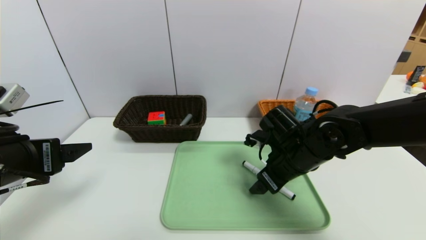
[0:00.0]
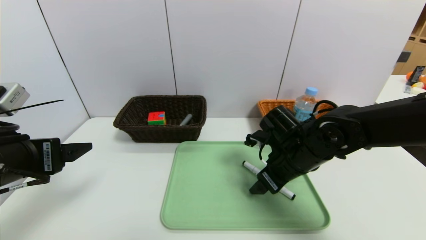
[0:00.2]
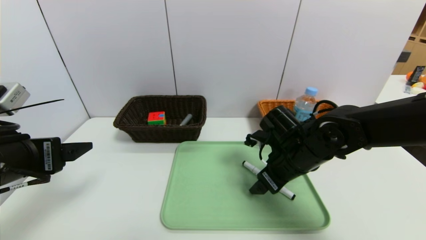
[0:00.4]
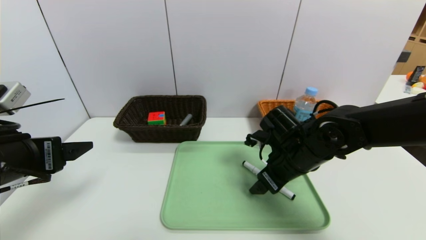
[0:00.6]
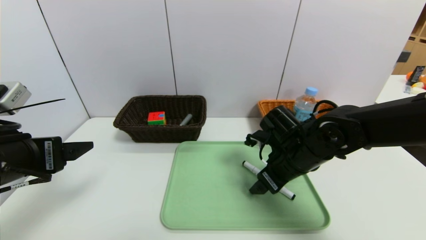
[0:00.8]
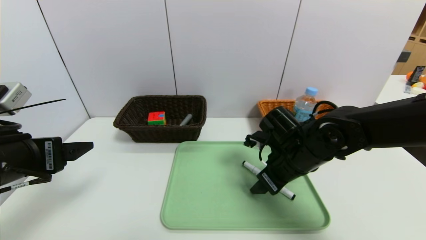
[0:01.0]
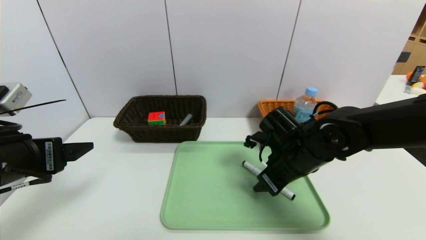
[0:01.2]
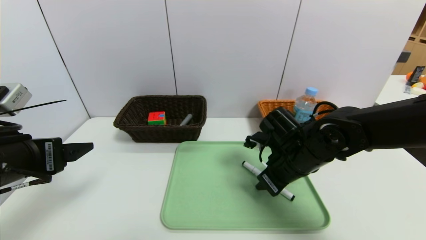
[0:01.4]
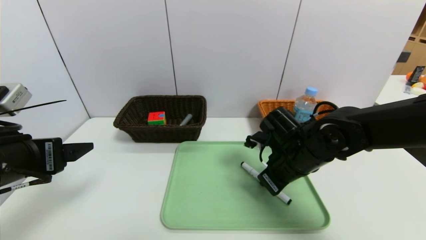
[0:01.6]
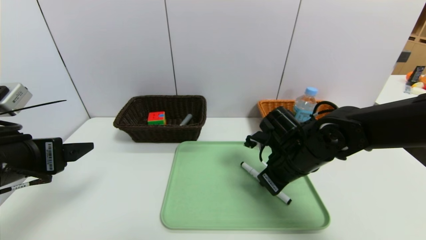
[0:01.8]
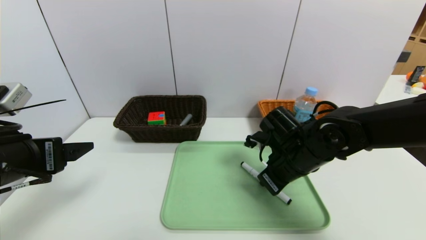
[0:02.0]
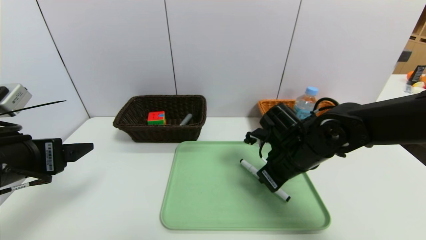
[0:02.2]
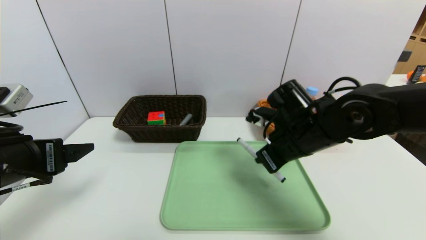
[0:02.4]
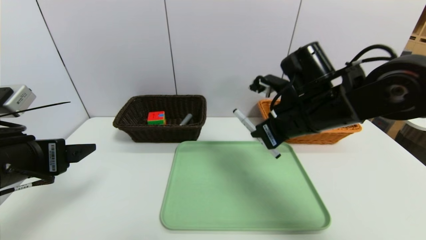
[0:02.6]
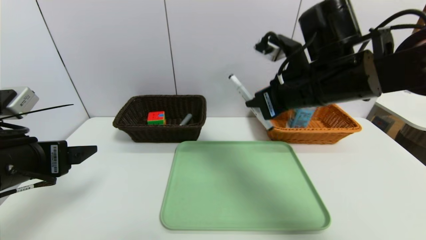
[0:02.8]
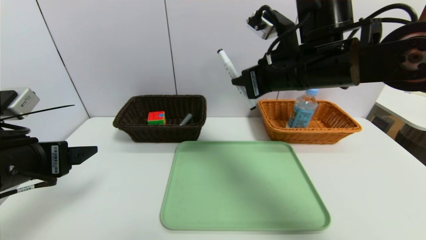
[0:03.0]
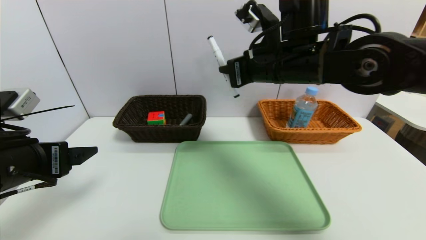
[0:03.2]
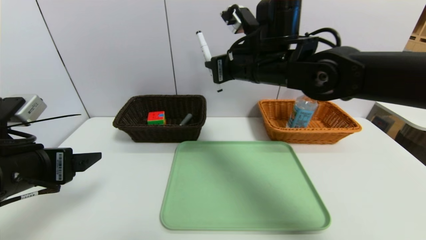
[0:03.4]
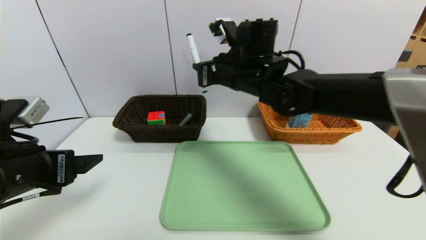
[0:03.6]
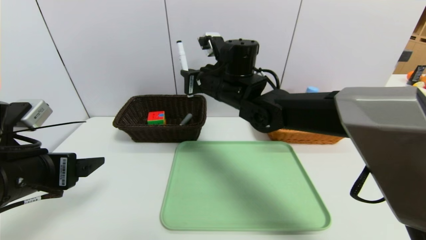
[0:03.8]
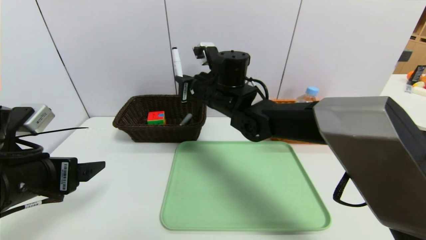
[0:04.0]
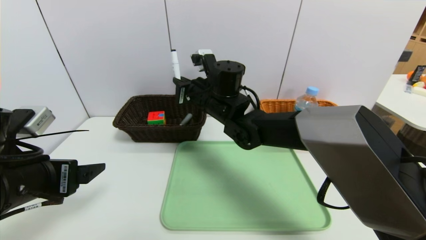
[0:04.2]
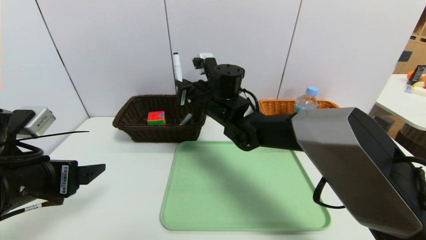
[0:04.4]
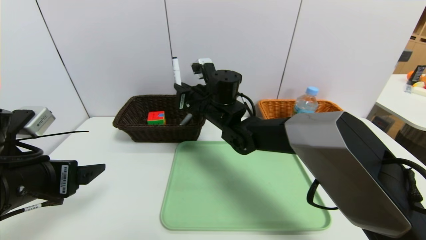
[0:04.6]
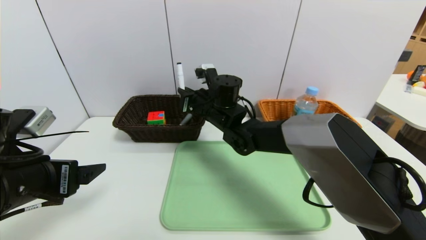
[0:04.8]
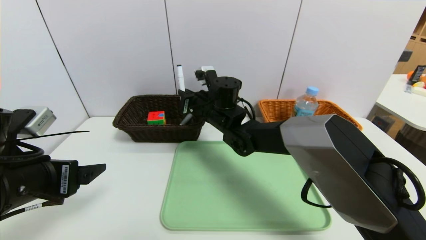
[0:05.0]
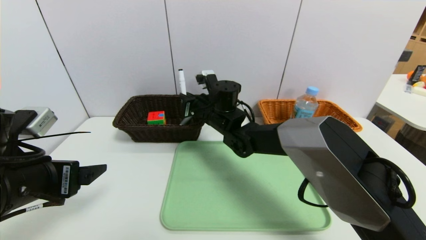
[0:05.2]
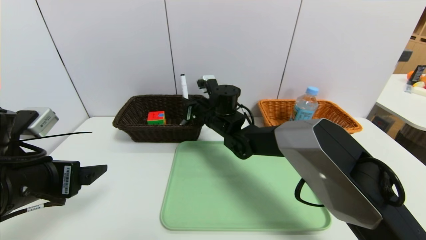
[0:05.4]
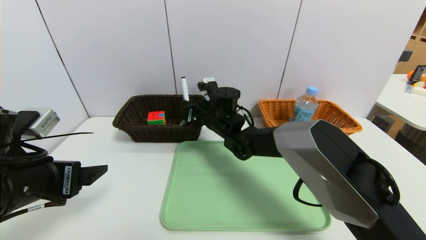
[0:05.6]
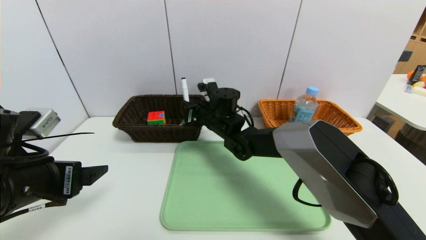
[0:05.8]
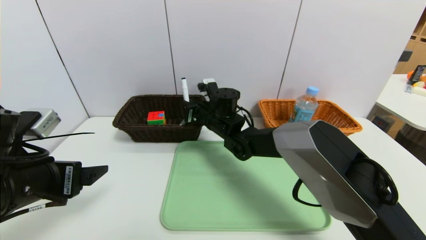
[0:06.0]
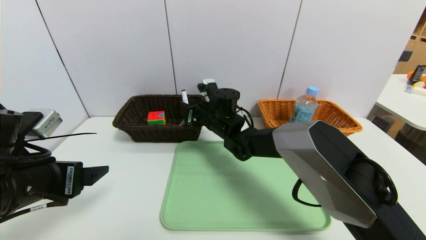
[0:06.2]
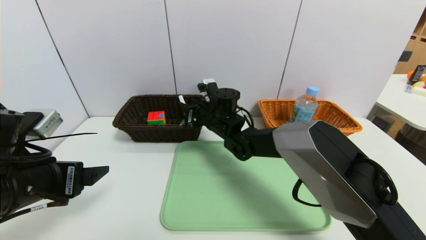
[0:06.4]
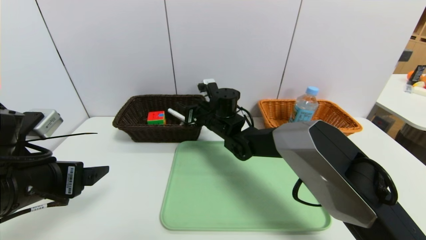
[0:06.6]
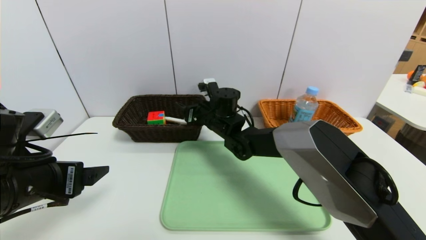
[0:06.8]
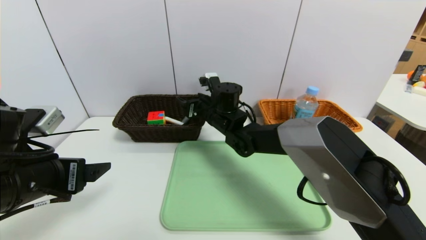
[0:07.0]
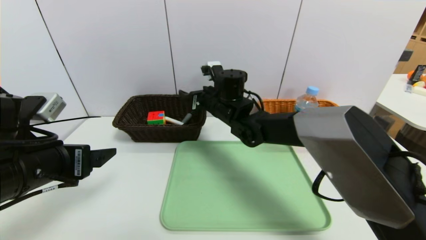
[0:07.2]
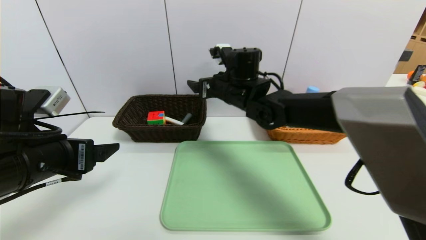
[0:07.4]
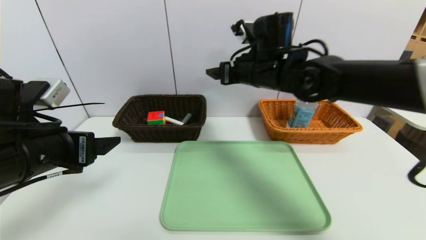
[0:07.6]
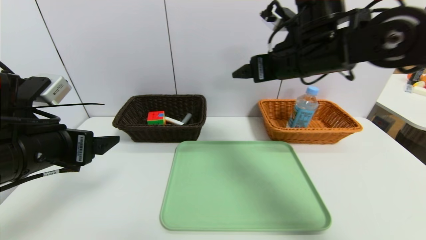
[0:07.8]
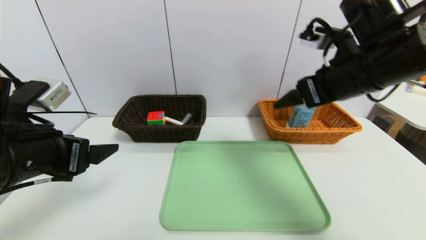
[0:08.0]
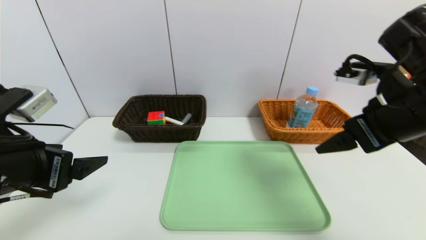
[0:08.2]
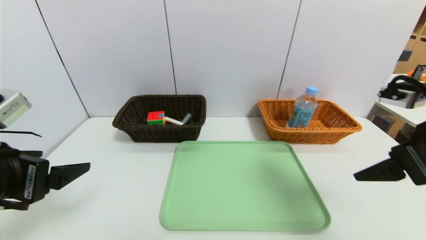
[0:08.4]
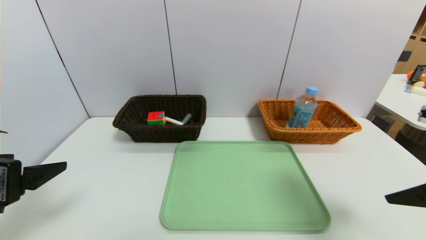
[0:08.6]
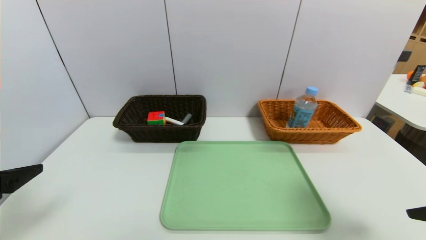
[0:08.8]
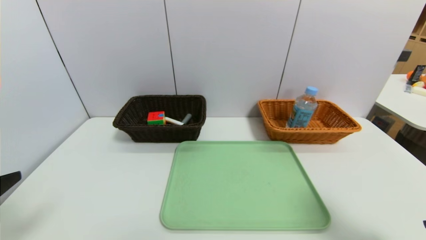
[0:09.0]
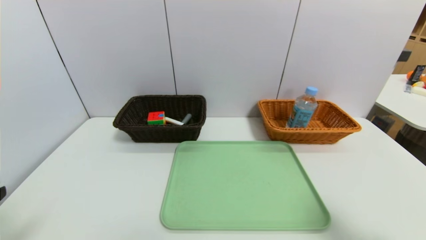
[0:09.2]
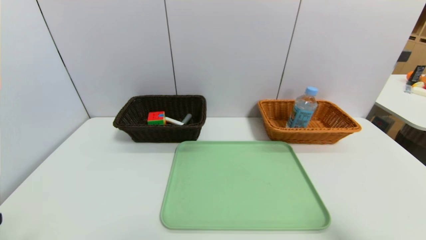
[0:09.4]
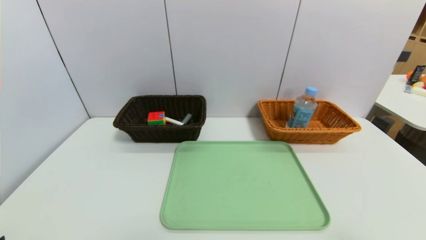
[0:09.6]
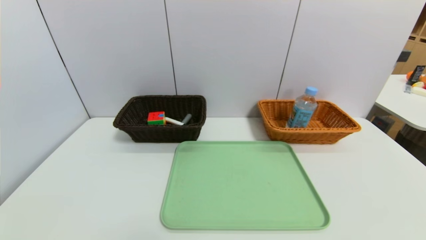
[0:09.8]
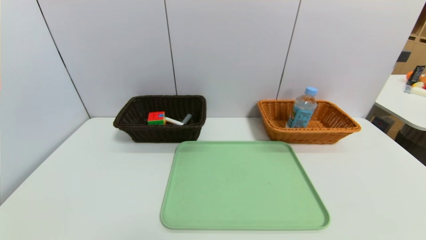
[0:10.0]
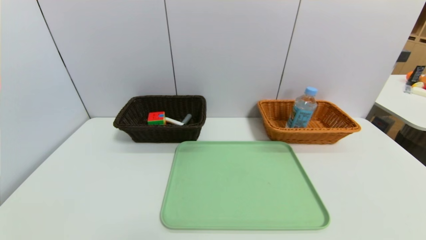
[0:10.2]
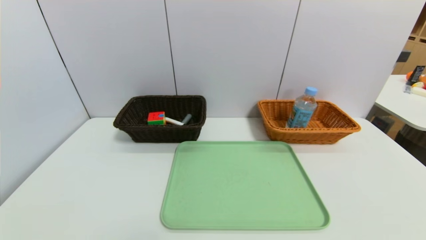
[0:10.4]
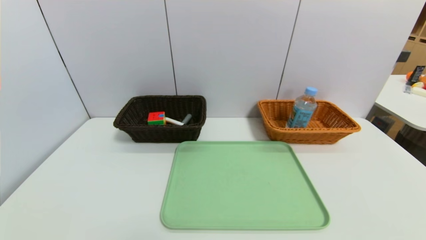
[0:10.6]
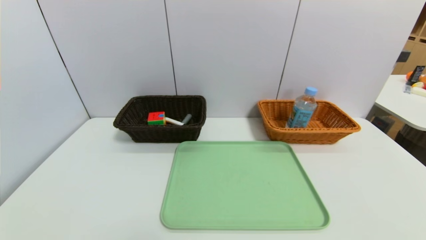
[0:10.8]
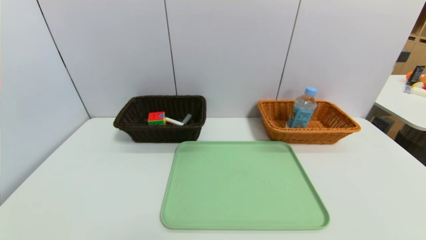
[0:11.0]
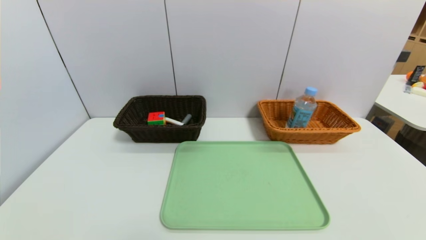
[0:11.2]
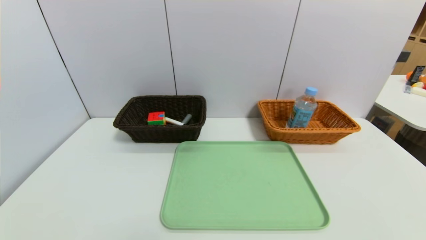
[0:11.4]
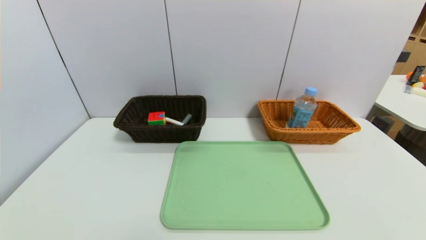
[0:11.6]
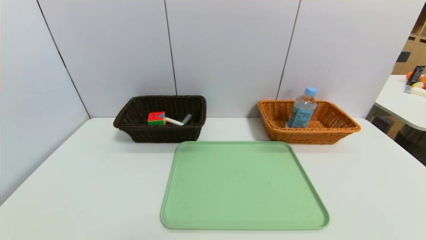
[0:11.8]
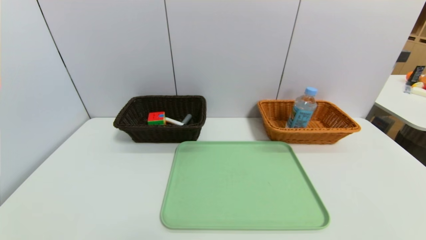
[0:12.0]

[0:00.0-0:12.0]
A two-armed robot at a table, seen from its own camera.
Task of the whole recording: place the food in the right basket with the right gripper, and place the non food items in the left basket with the left gripper.
0:00.0 to 0:01.6: The right gripper closes.
0:01.6 to 0:03.0: The right gripper shifts roughly 20 cm upward.
0:03.0 to 0:04.4: The right gripper heads to the left, downward and forward, covering some 20 cm.
0:04.4 to 0:06.0: The right gripper moves downward, approximately 5 cm.
0:06.0 to 0:07.6: The right gripper travels upward and to the right by some 20 cm, and opens up.
0:07.6 to 0:09.0: The left gripper is displaced backward and to the left by roughly 15 cm; the right gripper is displaced backward and to the right by approximately 35 cm.
0:09.0 to 0:10.4: The two grippers go approximately 15 cm downward and backward.

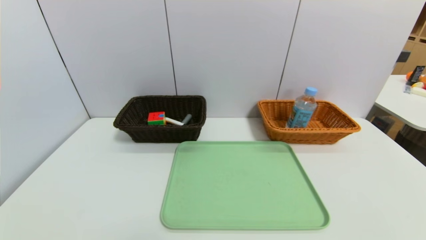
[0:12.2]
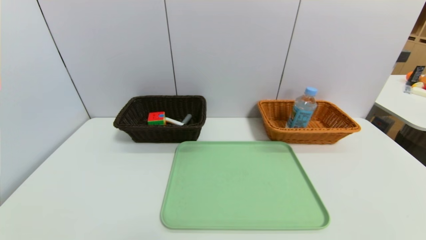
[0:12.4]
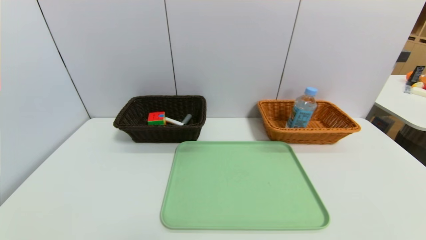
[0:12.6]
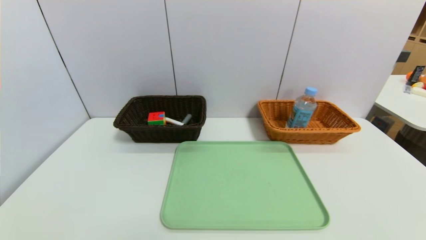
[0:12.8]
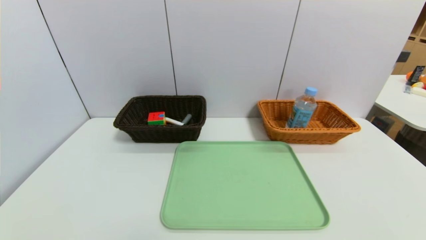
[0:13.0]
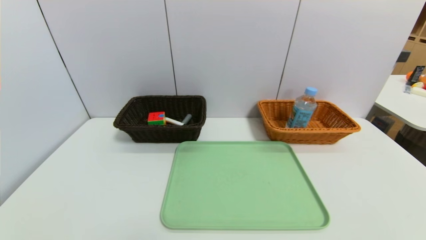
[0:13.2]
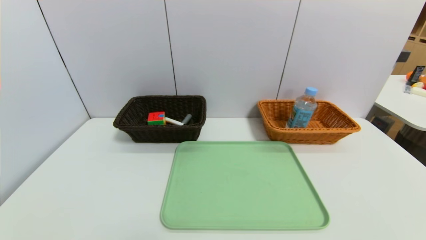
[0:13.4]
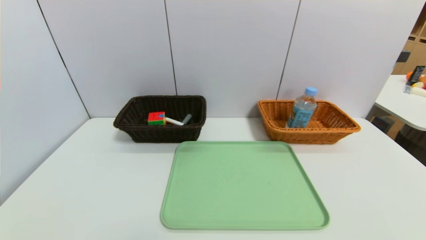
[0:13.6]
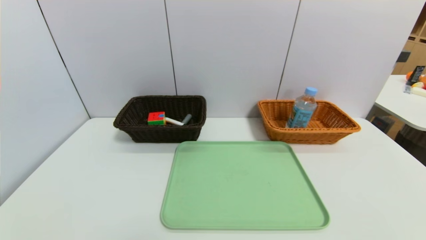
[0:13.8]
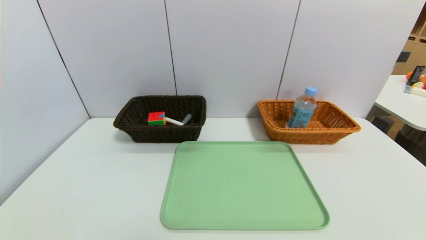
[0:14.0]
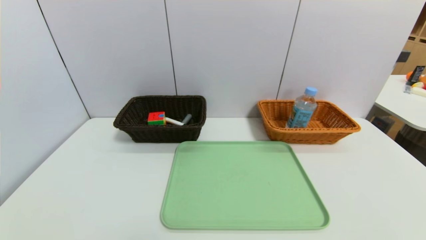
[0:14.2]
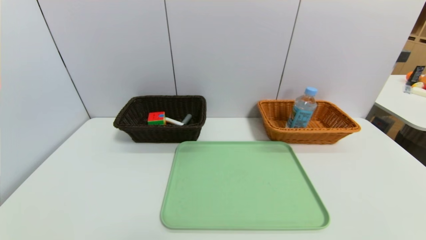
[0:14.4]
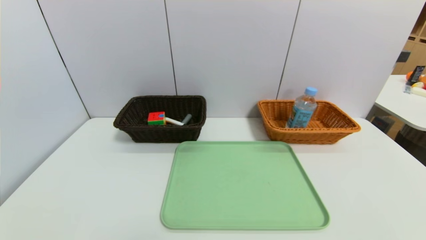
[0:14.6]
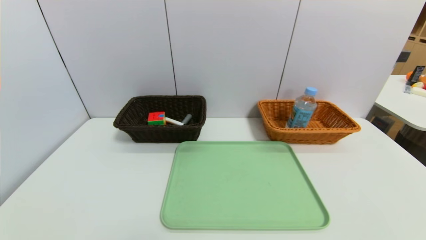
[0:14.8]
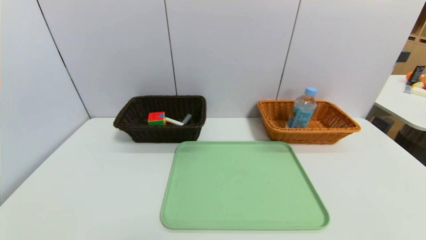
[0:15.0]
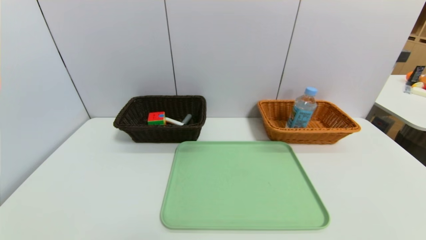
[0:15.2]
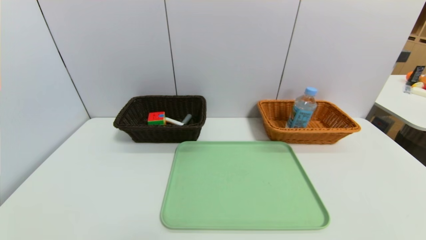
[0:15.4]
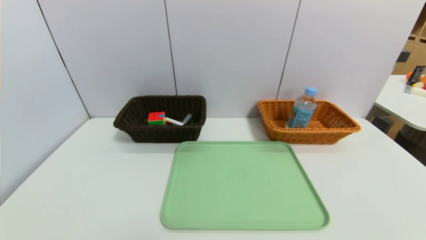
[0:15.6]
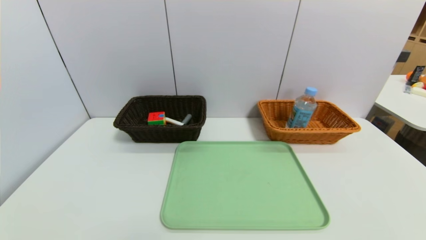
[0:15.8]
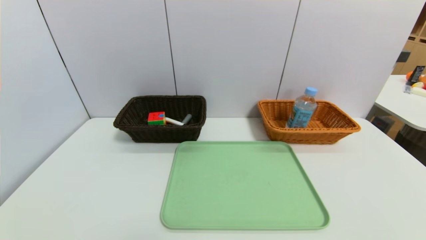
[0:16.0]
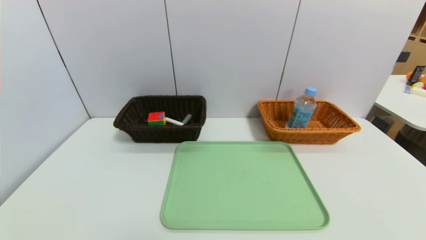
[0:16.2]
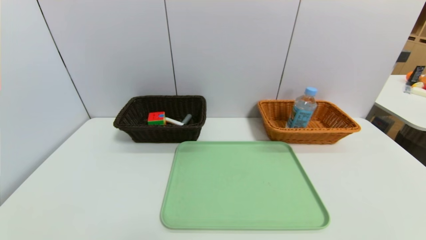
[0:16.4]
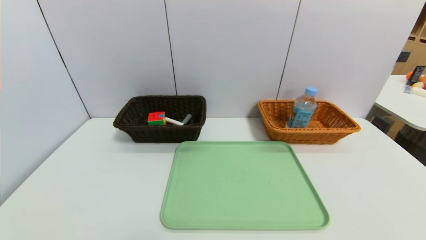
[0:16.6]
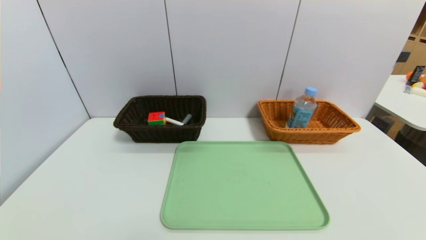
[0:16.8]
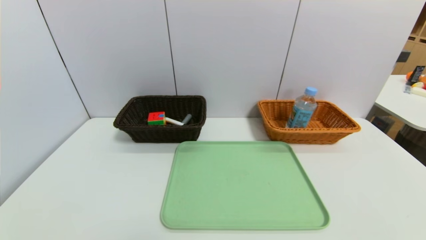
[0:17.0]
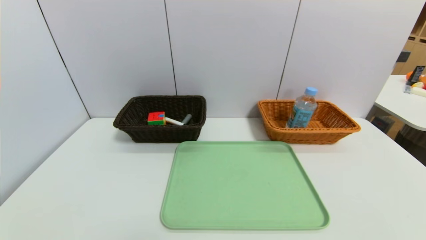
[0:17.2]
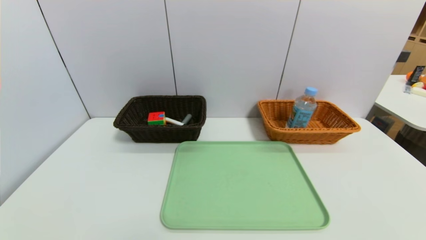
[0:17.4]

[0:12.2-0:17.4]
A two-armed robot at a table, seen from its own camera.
Task of the whole recording: place the food in the right basket with the right gripper, and place the non food items in the left basket with the left gripper.
0:12.2 to 0:17.4: Both grippers stay put.
